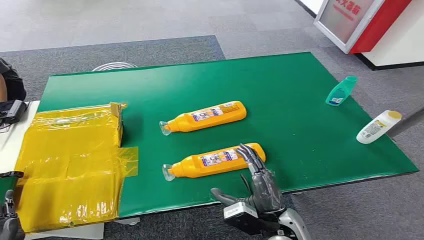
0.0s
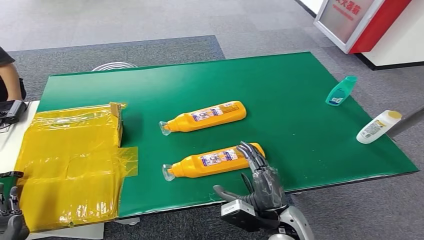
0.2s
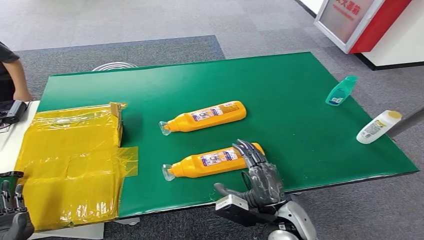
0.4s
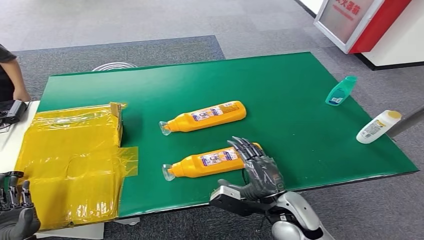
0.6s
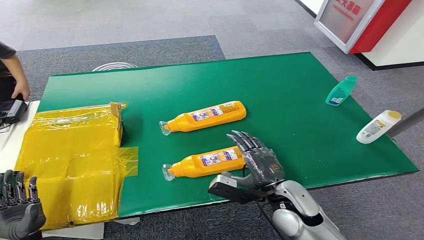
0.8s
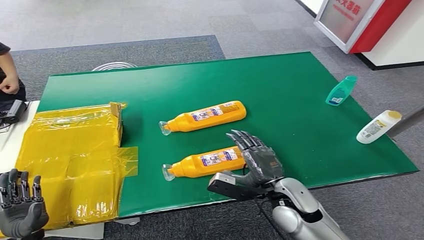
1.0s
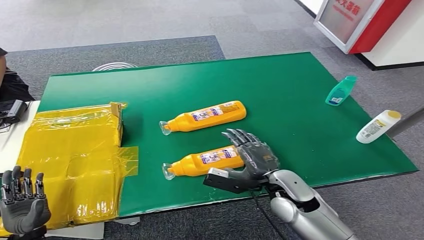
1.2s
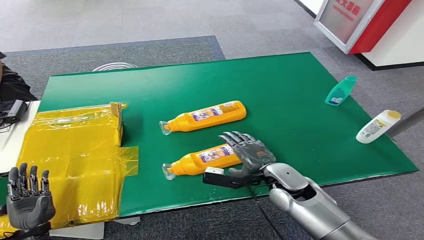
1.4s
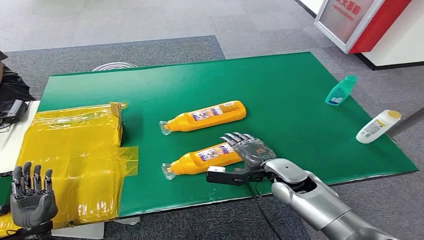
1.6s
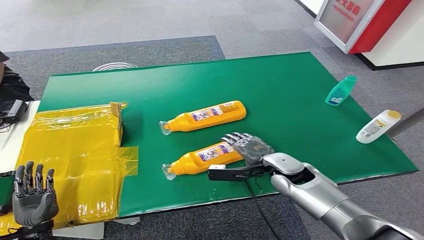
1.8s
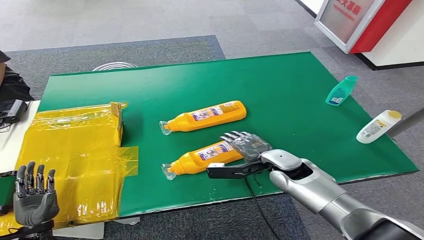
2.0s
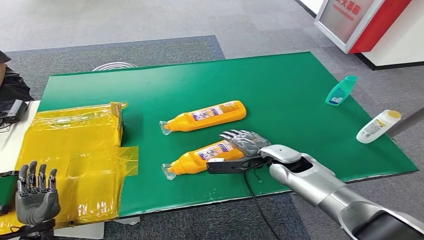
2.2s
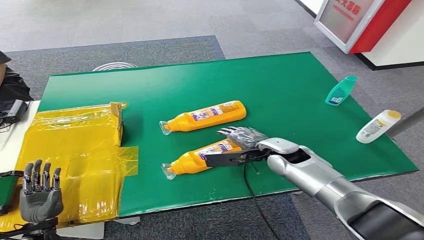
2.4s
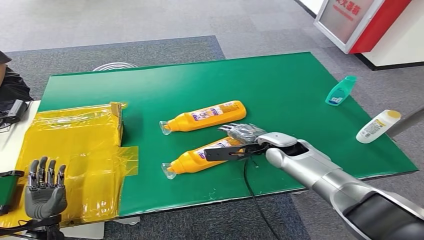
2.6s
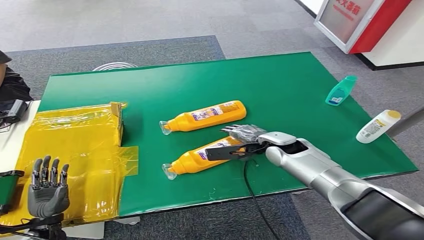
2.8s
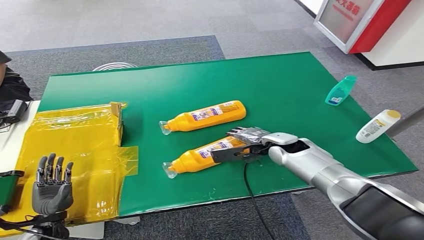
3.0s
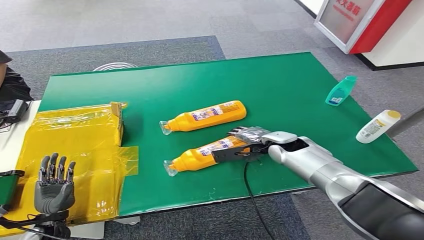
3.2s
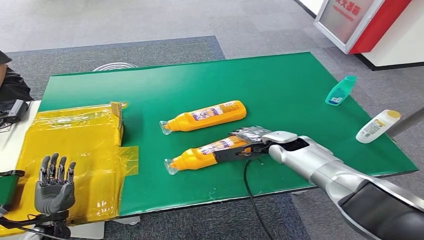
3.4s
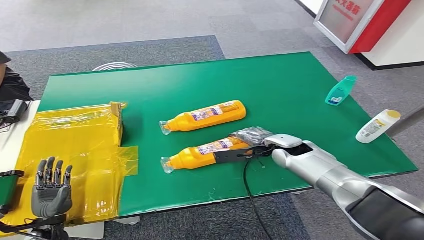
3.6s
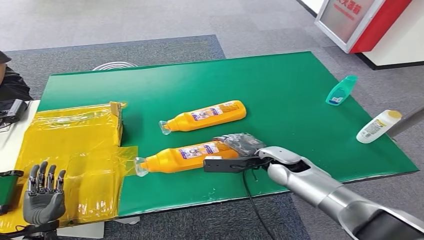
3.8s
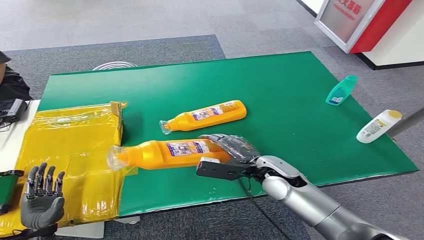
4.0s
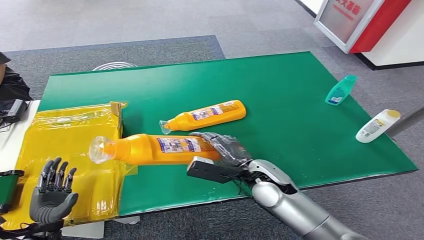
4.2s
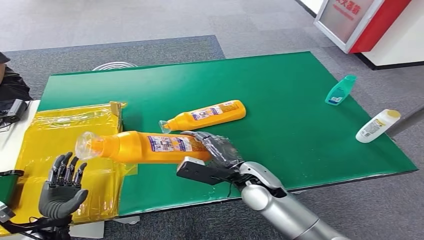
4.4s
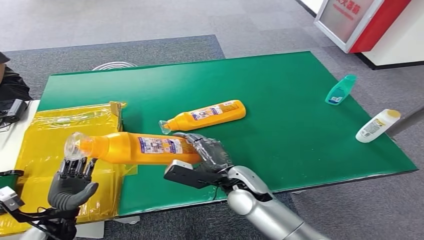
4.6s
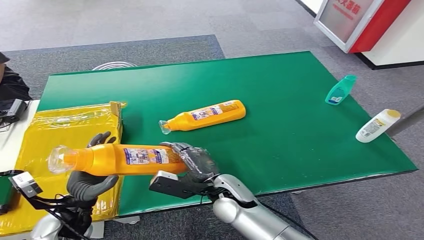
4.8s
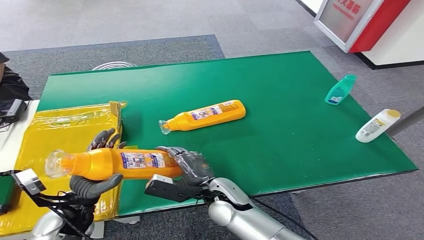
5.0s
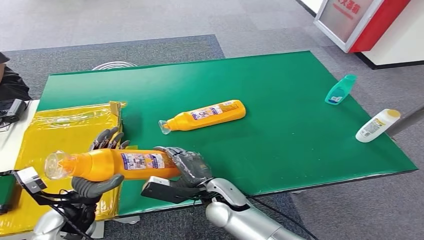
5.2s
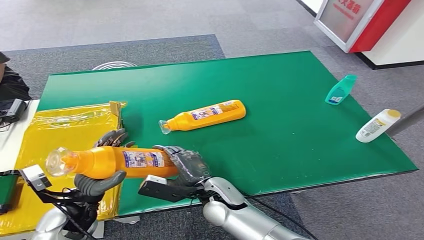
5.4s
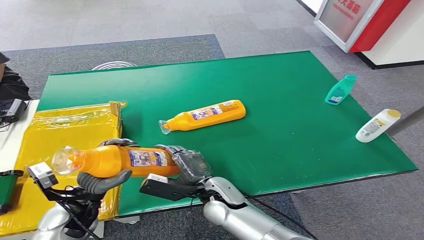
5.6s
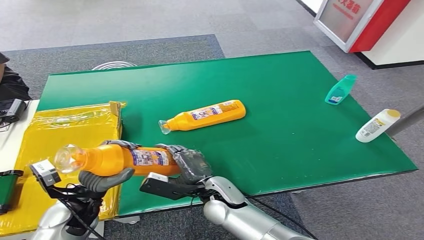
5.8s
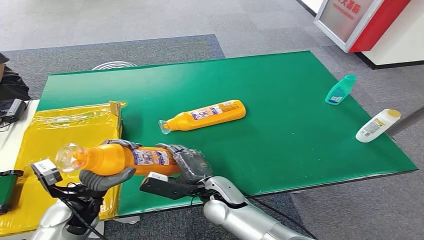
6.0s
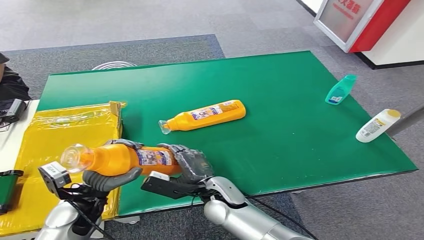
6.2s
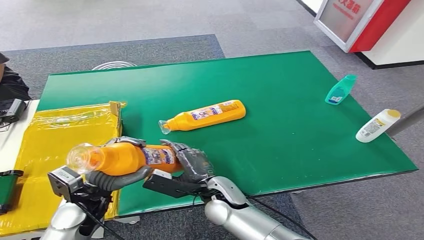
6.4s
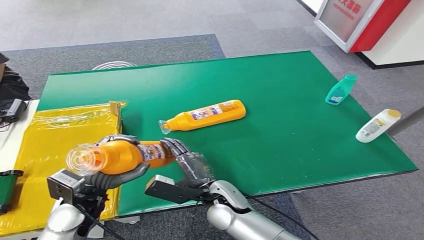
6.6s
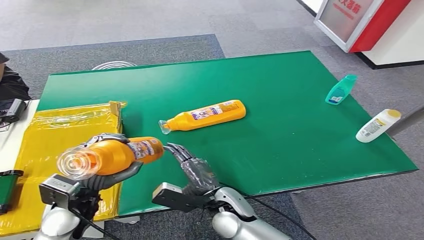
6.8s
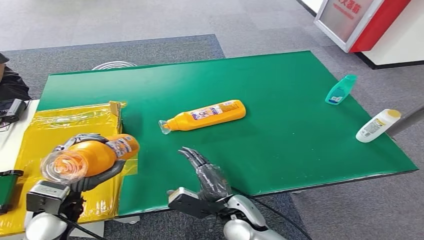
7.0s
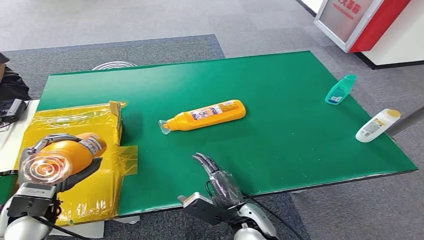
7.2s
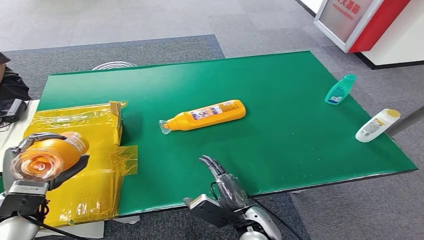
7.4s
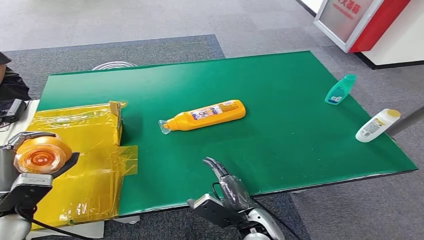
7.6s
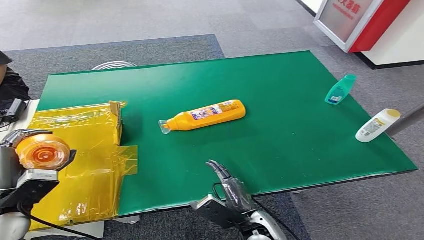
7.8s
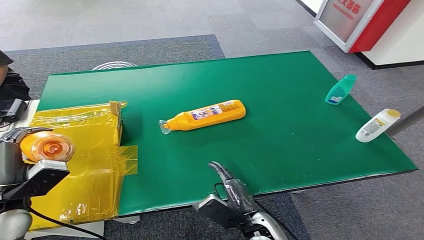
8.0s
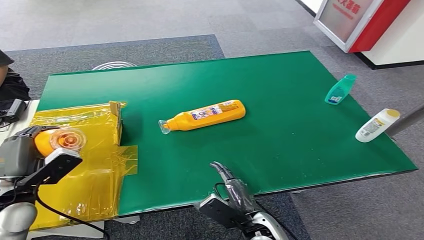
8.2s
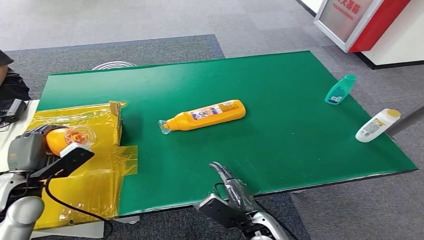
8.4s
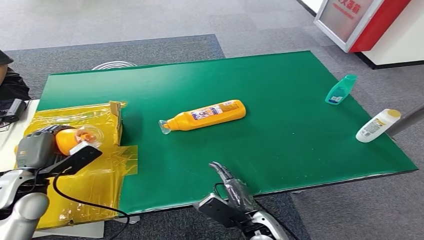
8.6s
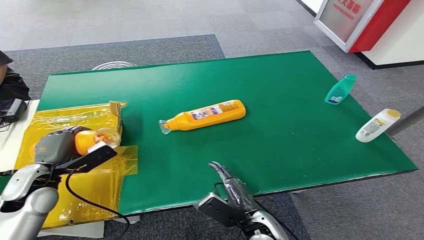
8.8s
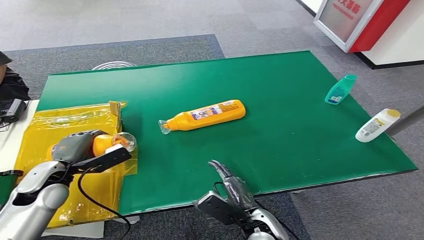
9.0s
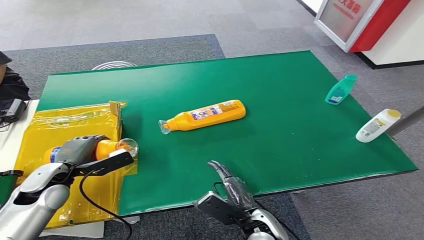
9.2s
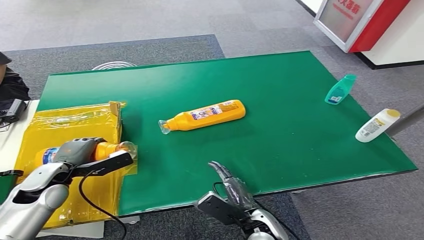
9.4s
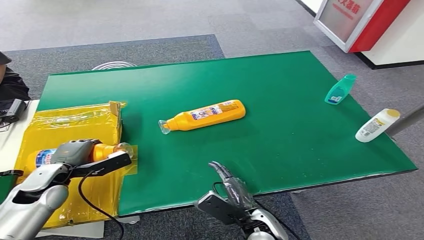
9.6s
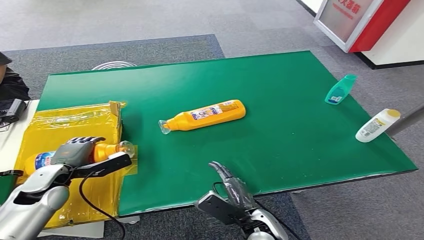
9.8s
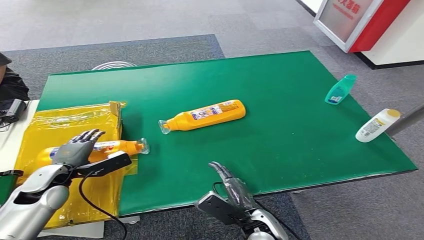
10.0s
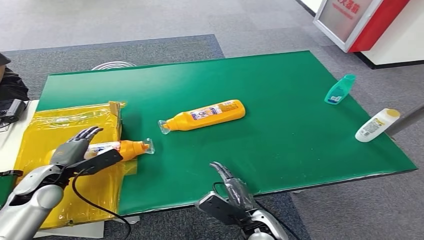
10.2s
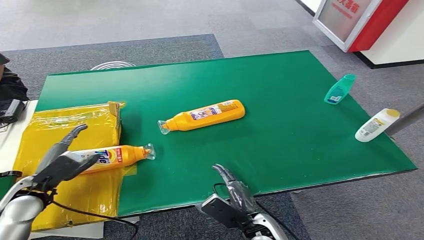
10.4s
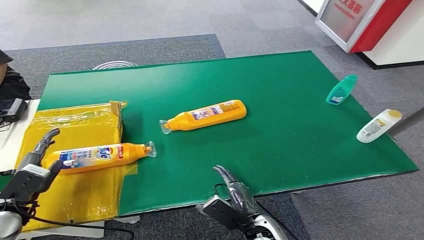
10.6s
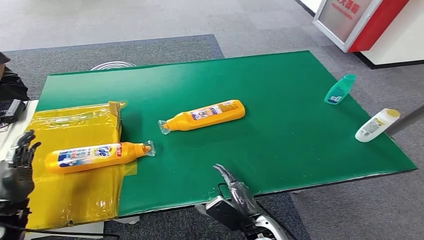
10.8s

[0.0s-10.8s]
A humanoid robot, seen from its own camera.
Step, 0.0s to 3.8s: Pick up the bottle from the table.
Step, 4.0s to 10.8s: Turn the bottle to the front side.
1.6s to 3.0s: The right hand moves forward, roughly 10 cm.
4.6s to 6.2s: The right hand goes about 5 cm to the left. The left hand is displaced to the right and upward by some 10 cm.
6.2s to 7.8s: The left hand shifts roughly 15 cm to the left and upward, while the right hand shifts approximately 10 cm backward and to the right.
7.8s to 9.2s: The left hand moves forward, about 10 cm.
9.2s to 10.8s: The left hand shifts some 10 cm backward and to the left.
